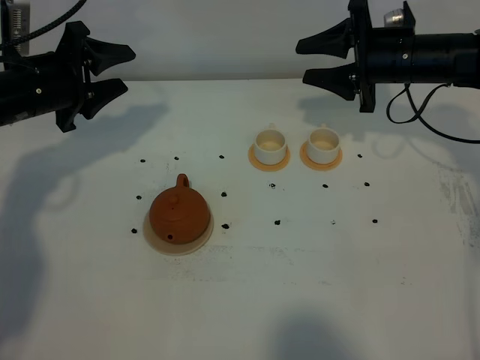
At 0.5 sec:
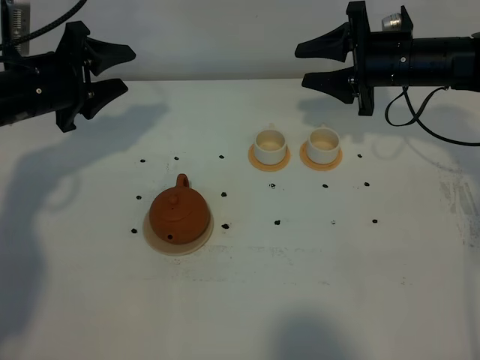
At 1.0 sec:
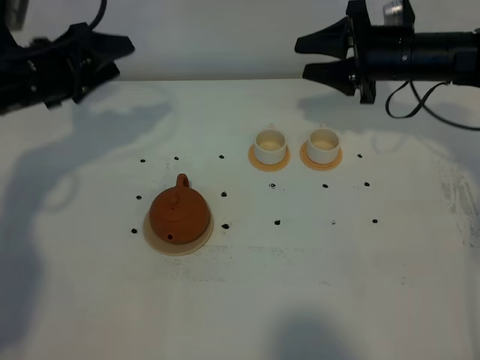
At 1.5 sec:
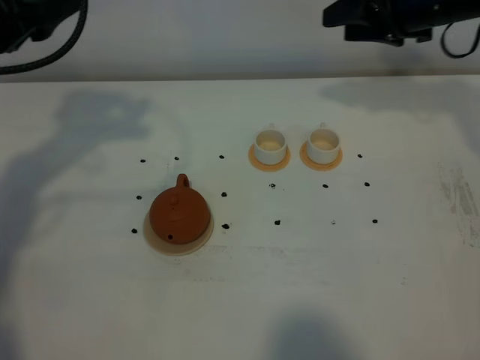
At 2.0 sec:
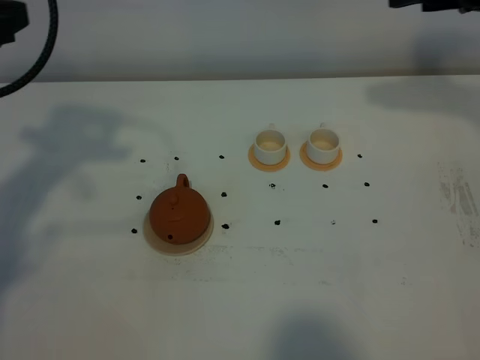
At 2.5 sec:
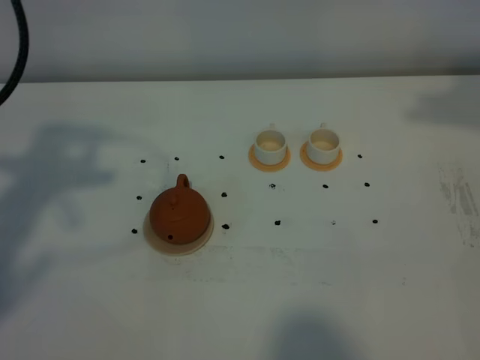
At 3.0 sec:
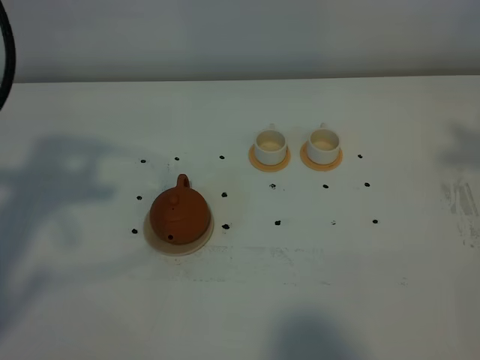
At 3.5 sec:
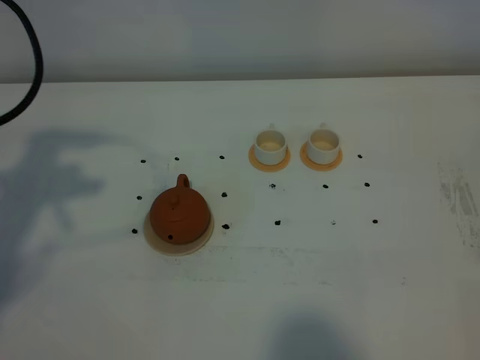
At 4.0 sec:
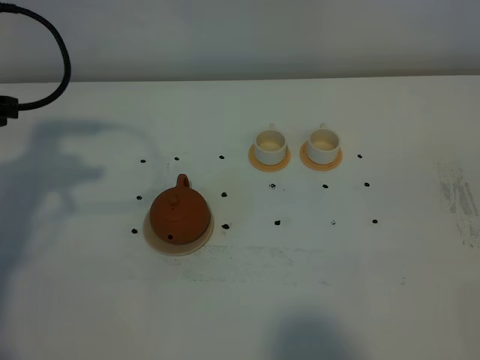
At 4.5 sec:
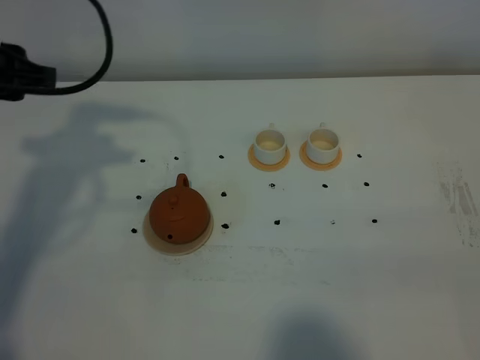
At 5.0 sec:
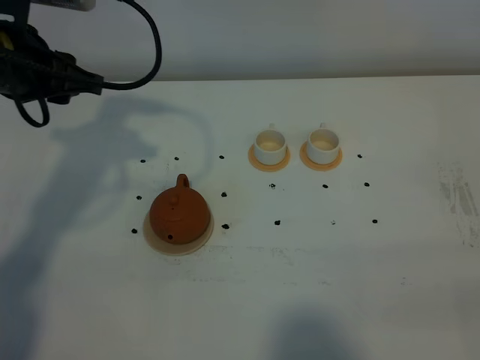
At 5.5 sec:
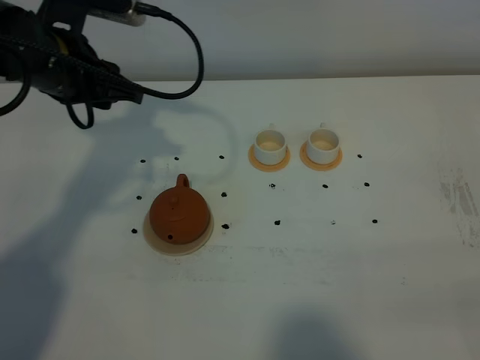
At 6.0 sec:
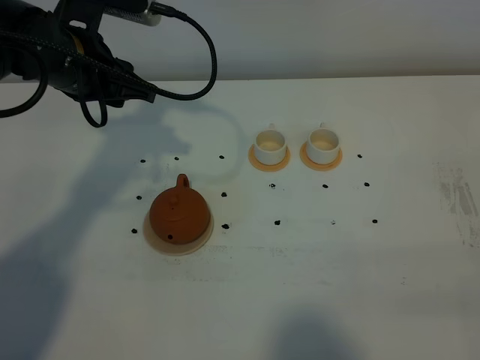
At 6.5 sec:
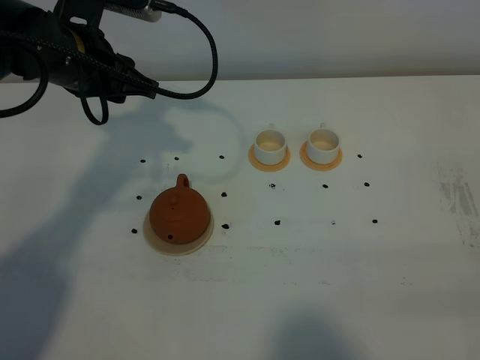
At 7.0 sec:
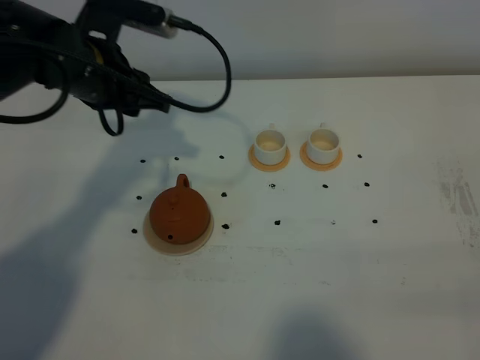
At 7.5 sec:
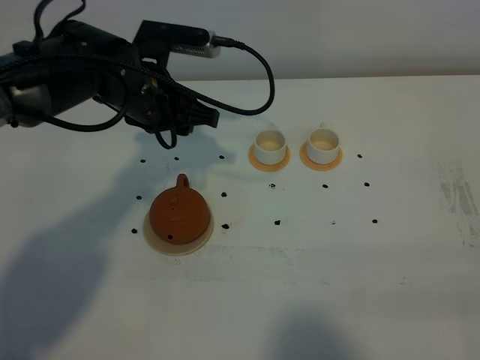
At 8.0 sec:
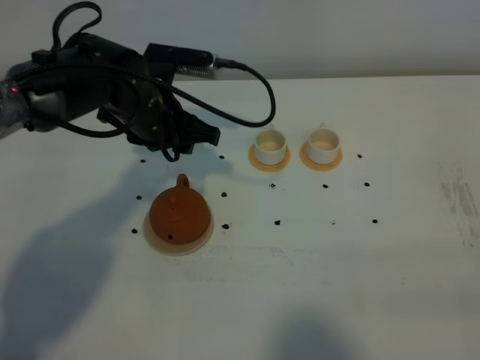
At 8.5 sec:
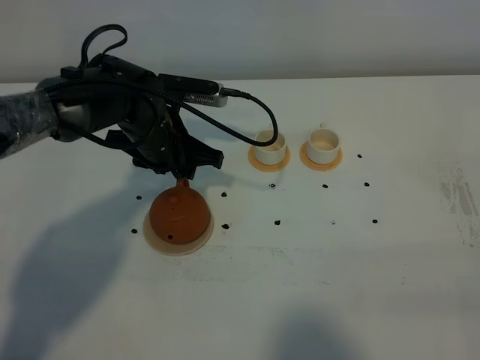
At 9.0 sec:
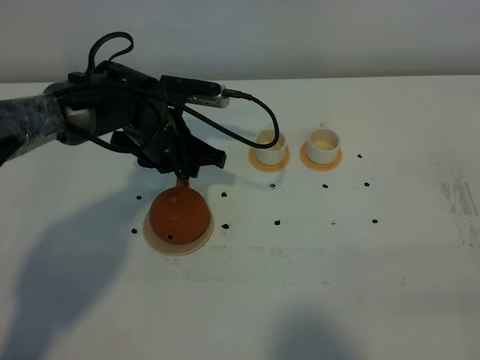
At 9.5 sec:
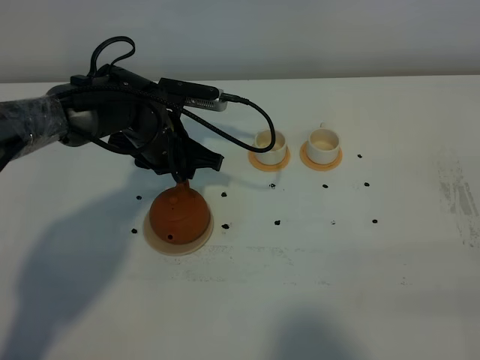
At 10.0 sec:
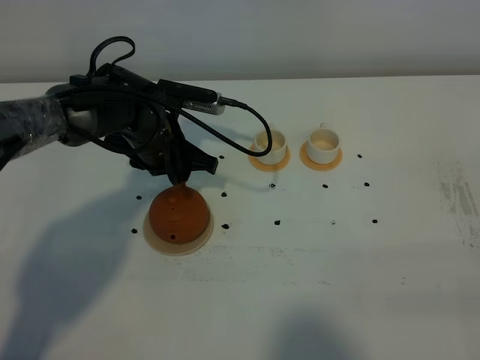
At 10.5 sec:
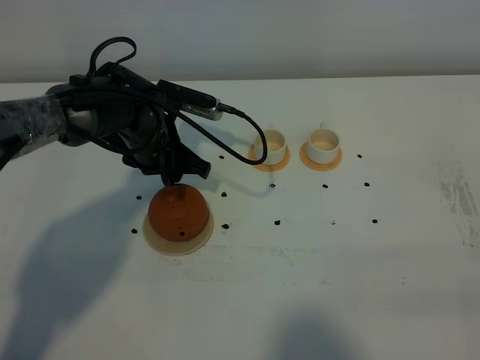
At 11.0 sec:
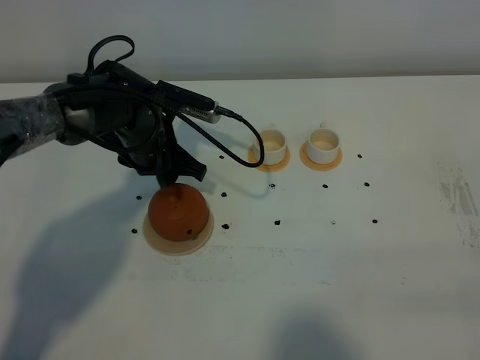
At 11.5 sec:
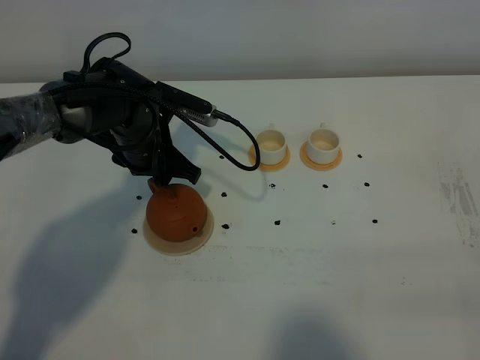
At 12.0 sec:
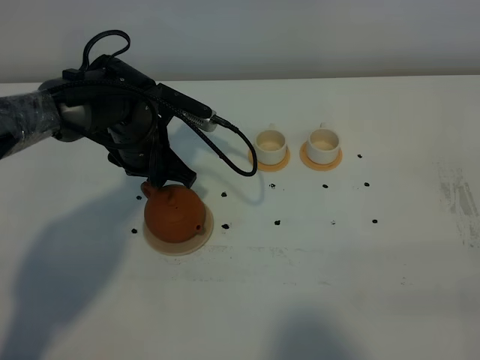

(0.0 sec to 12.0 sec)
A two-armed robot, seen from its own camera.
Task of the whole recording: grasp the brown teapot and pour the tea into the two white teacups one by one, put the brown teapot back in its original place.
0.0 sec - 2.0 sec: The left gripper moves upward and backward, some 20 cm, while the right gripper goes some 15 cm upward.
2.0 sec - 4.0 sec: The left gripper moves downward, approximately 5 cm; the right gripper goes roughly 40 cm backward.
4.0 sec - 6.0 sec: The right gripper shifts approximately 20 cm downward. The left gripper shifts some 15 cm to the right and forward.
6.0 sec - 8.0 sec: The left gripper goes some 10 cm downward and to the right.
8.0 sec - 10.0 sec: The left gripper goes approximately 5 cm downward.
10.0 sec - 12.0 sec: The grippers stay close to where they were, moving slightly.

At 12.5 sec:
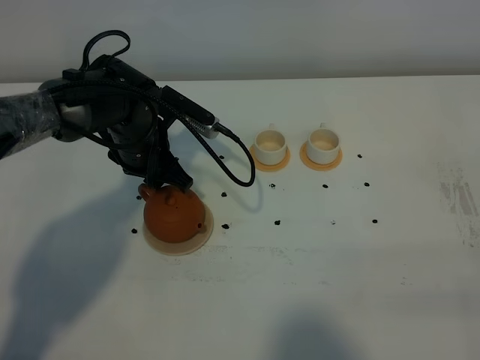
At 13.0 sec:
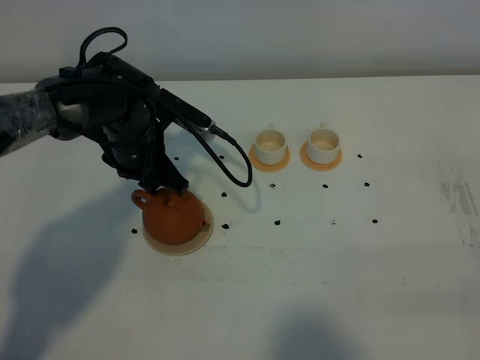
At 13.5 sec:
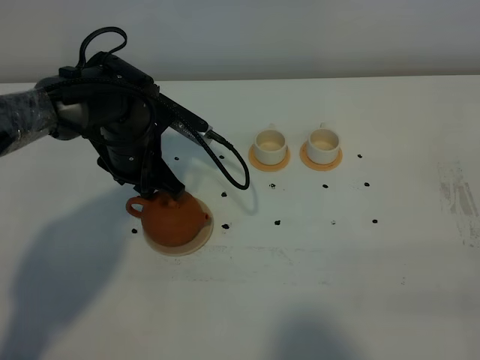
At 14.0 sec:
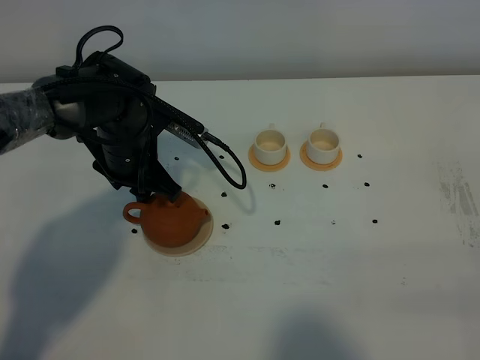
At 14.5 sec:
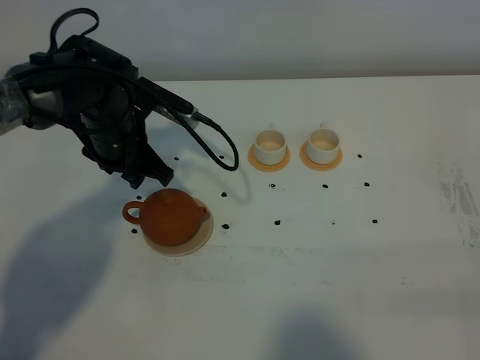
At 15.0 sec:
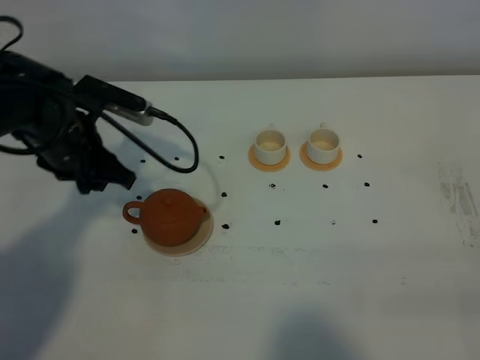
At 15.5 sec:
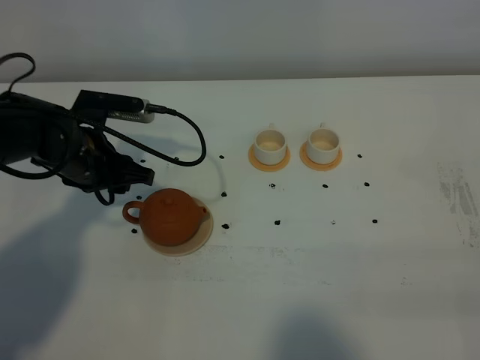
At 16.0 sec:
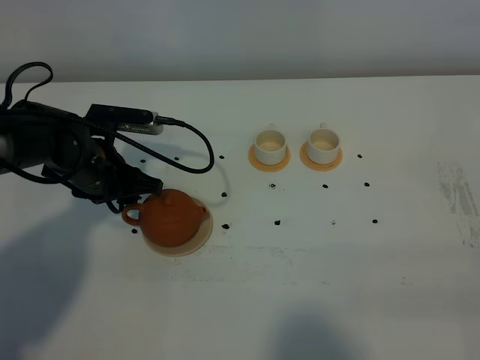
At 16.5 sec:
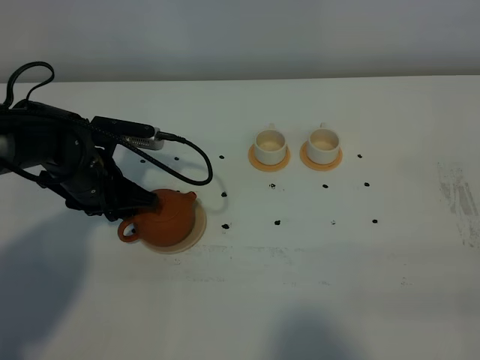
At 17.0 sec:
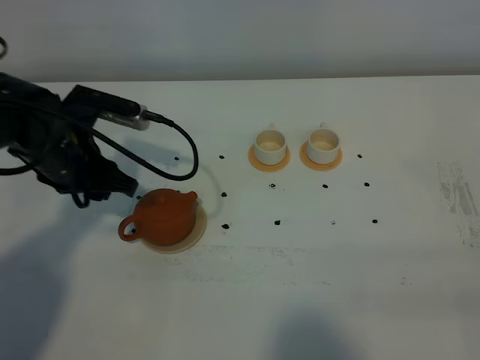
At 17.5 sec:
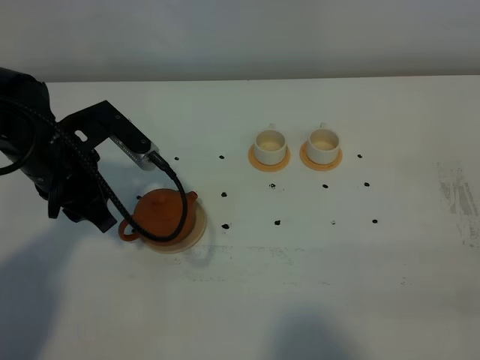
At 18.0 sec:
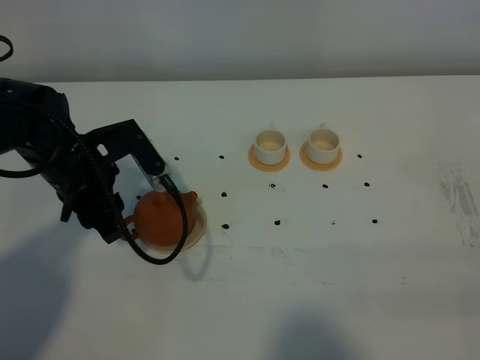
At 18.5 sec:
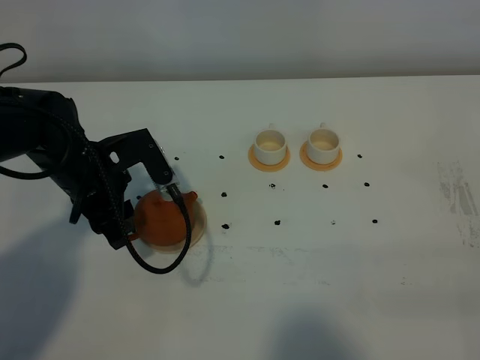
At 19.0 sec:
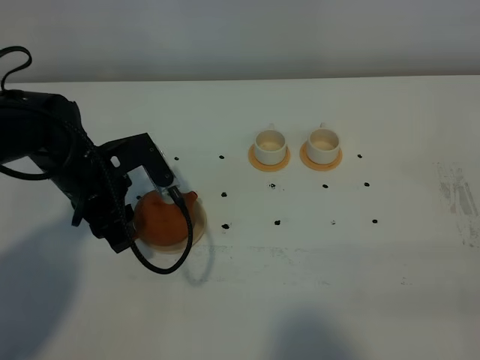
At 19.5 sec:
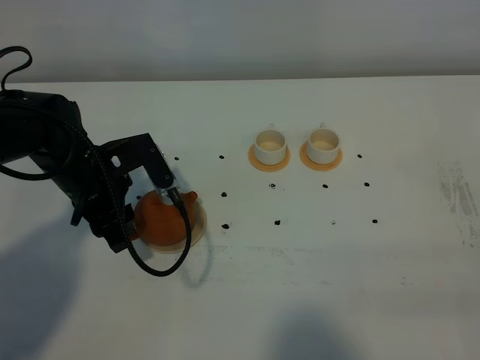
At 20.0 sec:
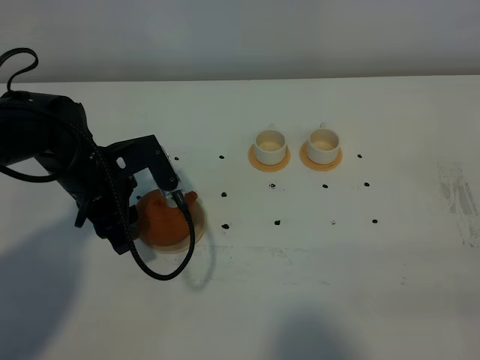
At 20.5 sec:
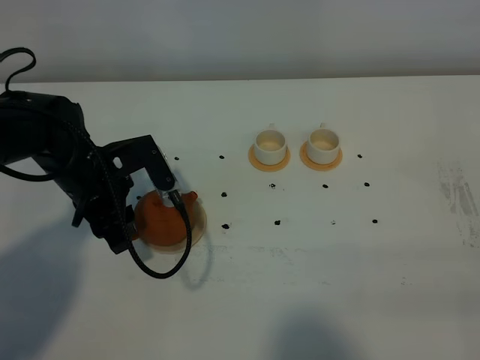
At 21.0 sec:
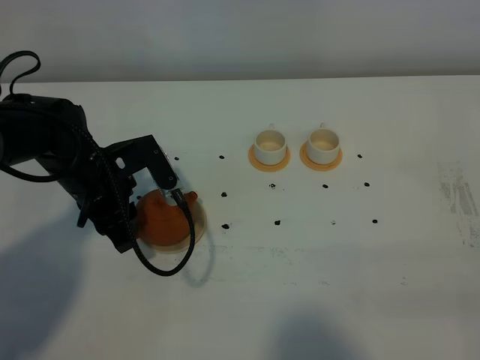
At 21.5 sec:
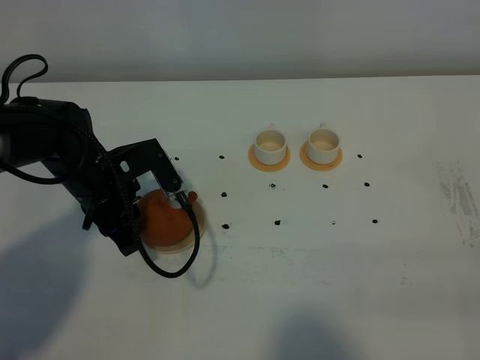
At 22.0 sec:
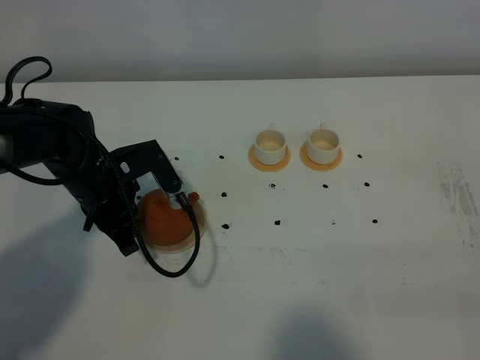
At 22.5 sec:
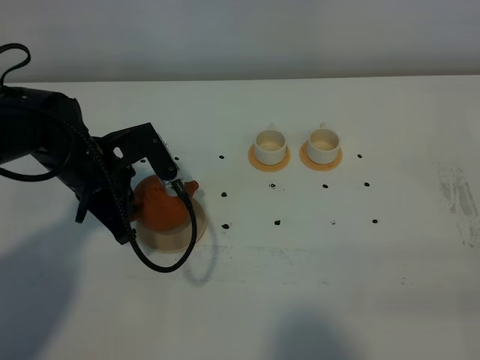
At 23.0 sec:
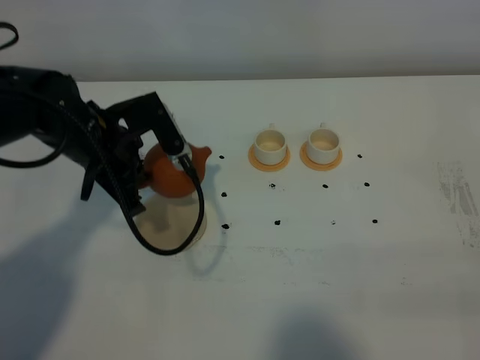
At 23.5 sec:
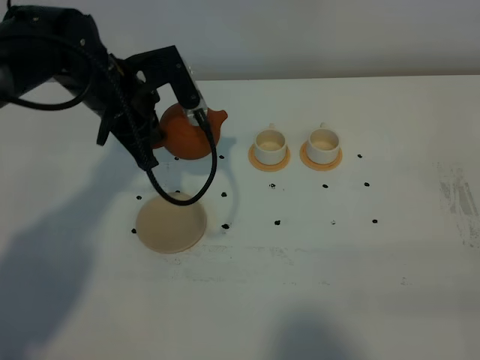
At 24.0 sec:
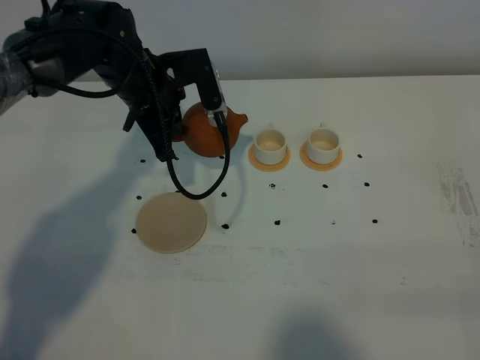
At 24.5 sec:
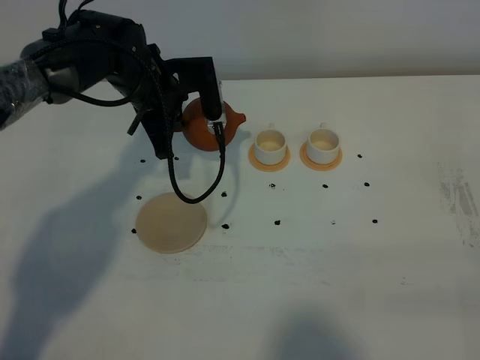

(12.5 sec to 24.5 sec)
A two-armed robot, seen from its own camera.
Task of the whole recording: grasp the brown teapot and pour the tea into the two white teacups one by one, put the brown teapot back in its original place.
Step, 12.5 sec - 22.5 sec: Pick up the teapot with the left gripper.
12.5 sec - 14.5 sec: There are only small adjustments of the grippers.
14.5 sec - 16.5 sec: The left gripper changes place by approximately 5 cm.
18.5 sec - 20.5 sec: Both grippers stay put.
20.5 sec - 22.5 sec: The left gripper closes.
22.5 sec - 24.5 sec: The left gripper moves forward and to the right, about 15 cm.

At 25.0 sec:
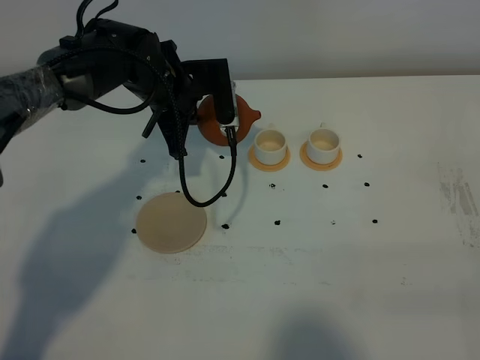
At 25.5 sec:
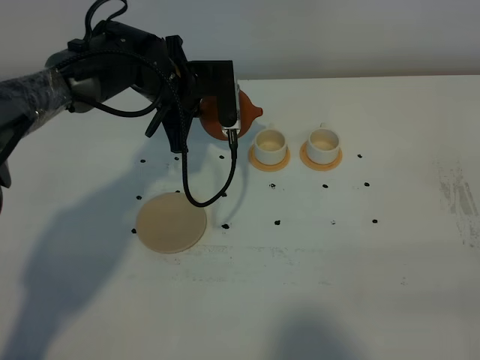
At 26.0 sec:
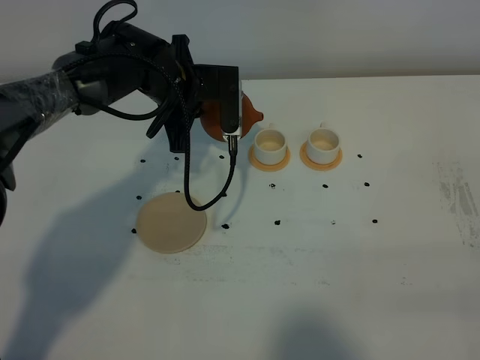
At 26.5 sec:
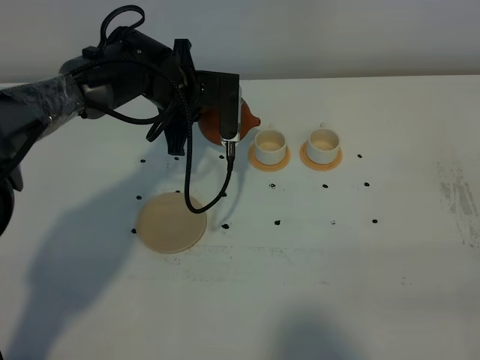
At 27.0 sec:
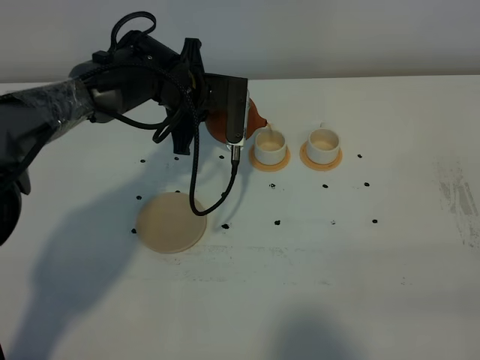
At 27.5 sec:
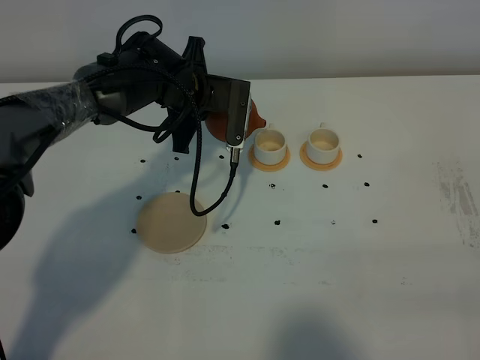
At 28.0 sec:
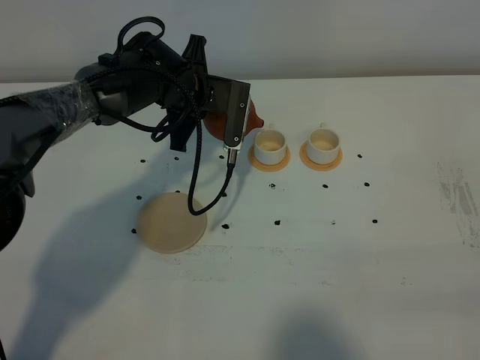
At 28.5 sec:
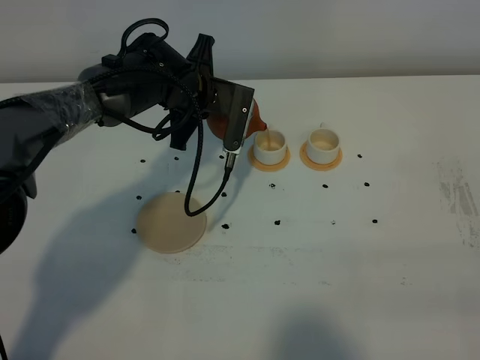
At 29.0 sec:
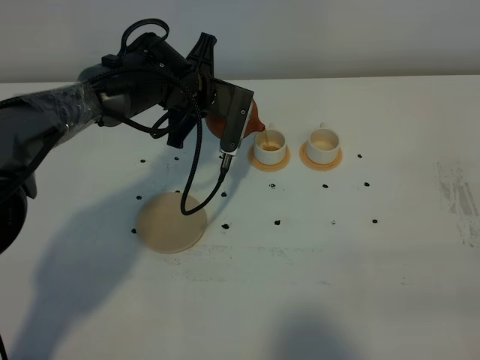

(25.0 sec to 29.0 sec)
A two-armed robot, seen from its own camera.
Task of the whole recording: grasp the brown teapot and pour the tea into the two white teacups one by one, put the brown teapot back in its original place.
25.0 sec - 27.0 sec: There are only small adjustments of the grippers.
27.0 sec - 29.0 sec: The grippers make only small movements.
